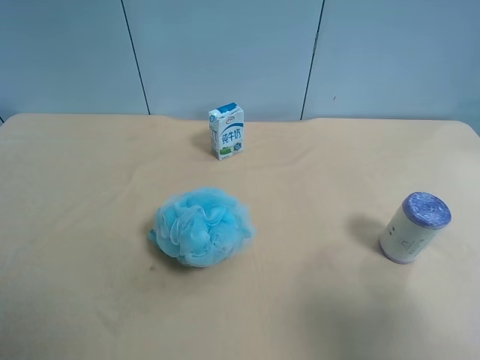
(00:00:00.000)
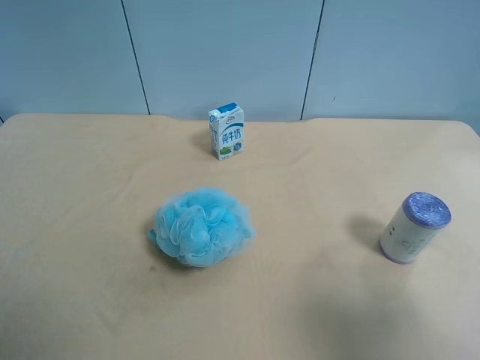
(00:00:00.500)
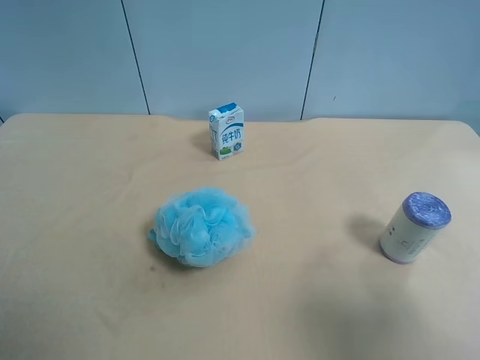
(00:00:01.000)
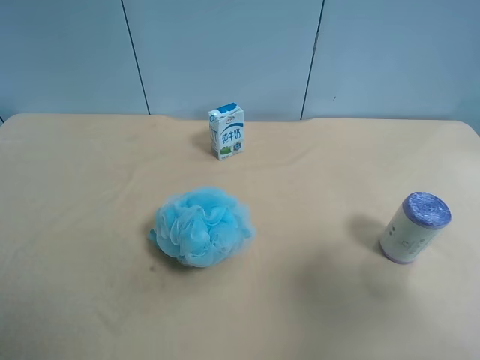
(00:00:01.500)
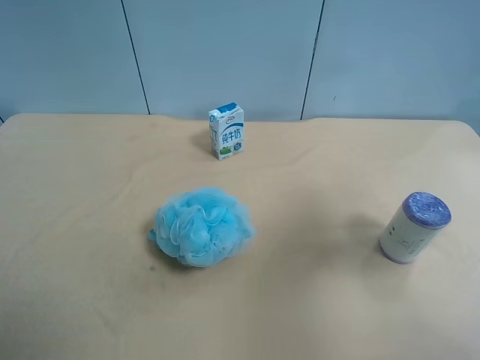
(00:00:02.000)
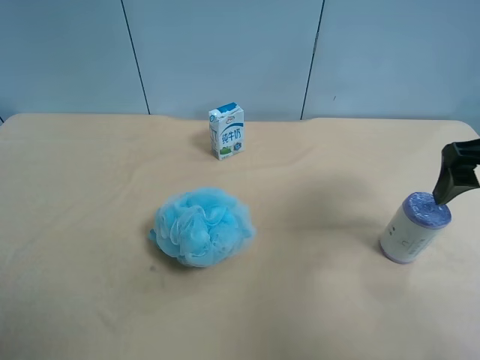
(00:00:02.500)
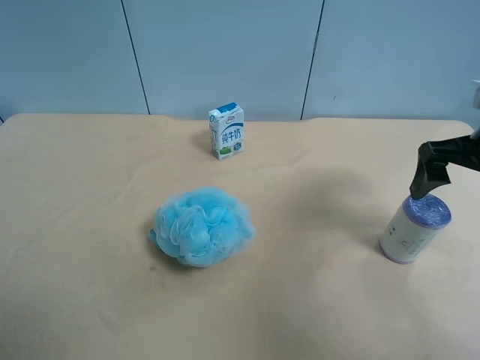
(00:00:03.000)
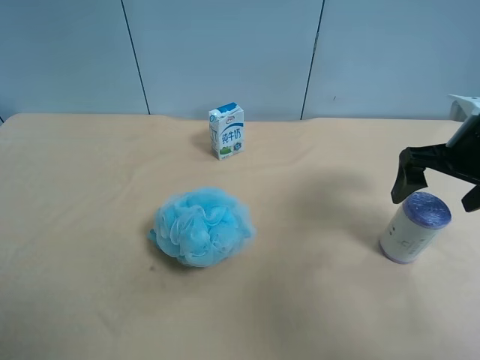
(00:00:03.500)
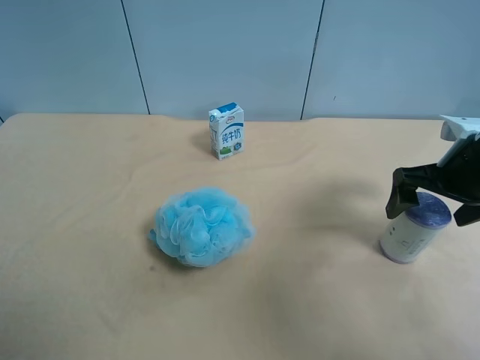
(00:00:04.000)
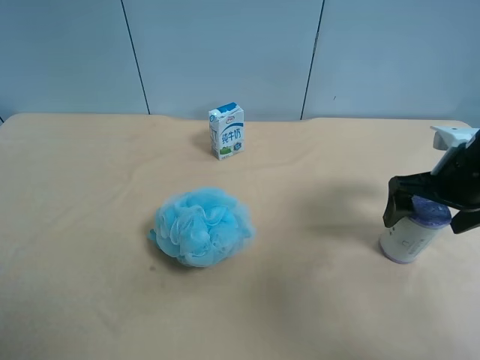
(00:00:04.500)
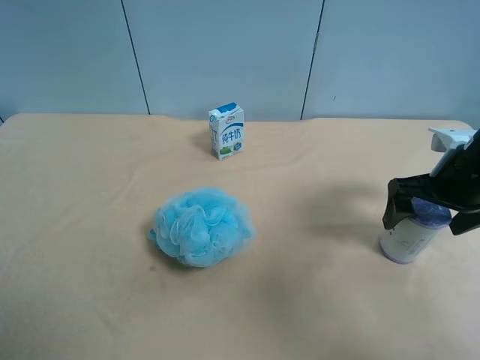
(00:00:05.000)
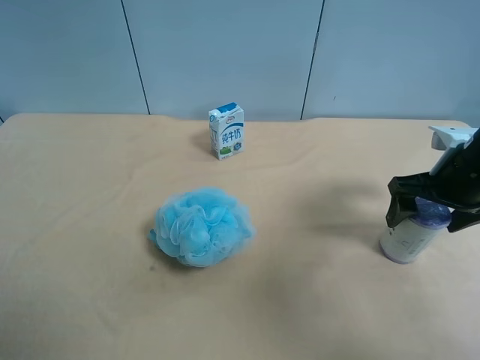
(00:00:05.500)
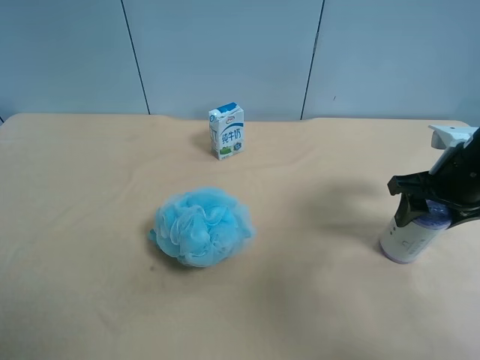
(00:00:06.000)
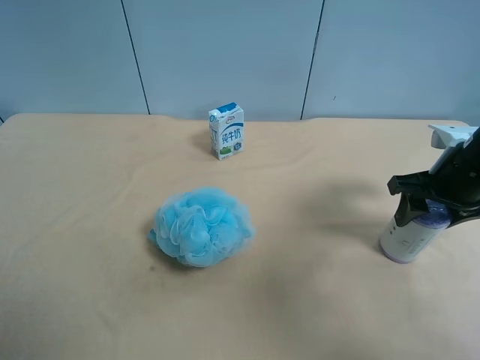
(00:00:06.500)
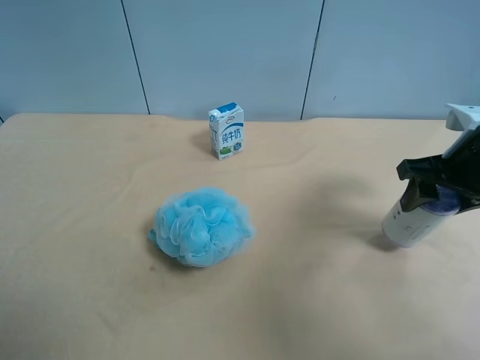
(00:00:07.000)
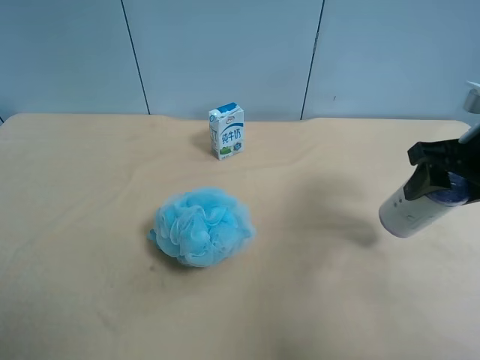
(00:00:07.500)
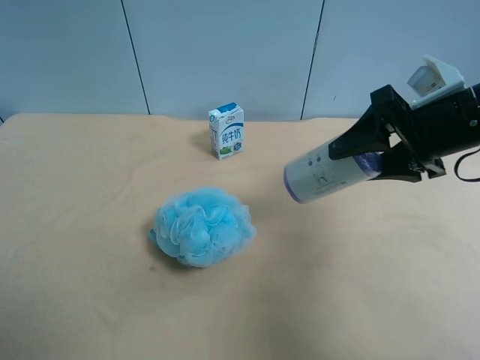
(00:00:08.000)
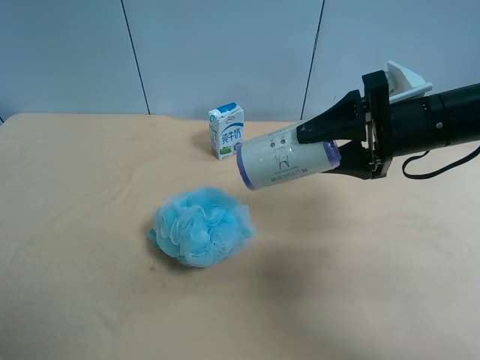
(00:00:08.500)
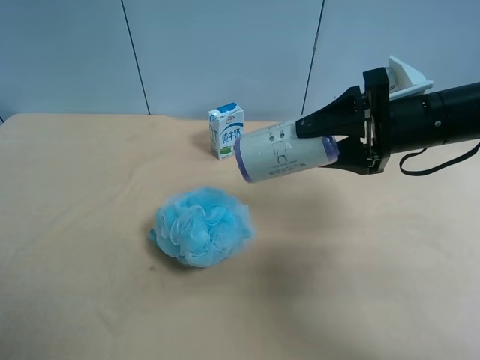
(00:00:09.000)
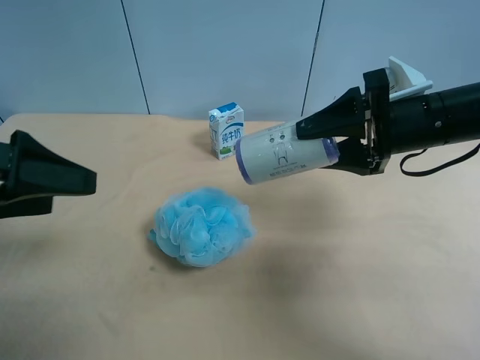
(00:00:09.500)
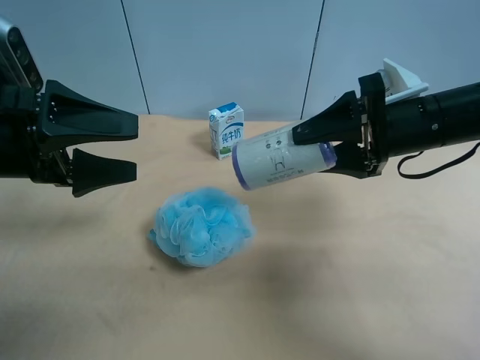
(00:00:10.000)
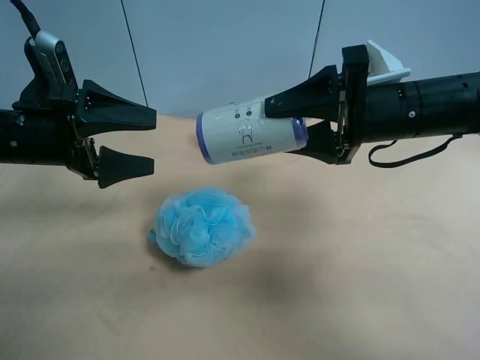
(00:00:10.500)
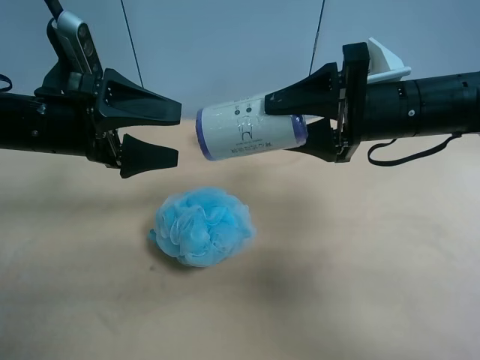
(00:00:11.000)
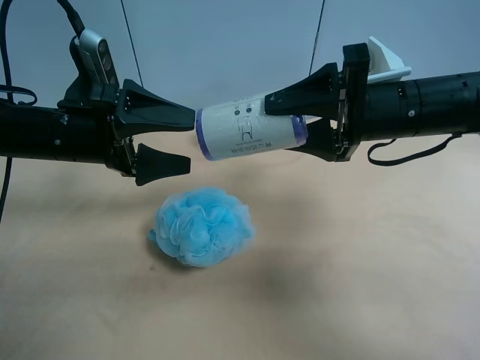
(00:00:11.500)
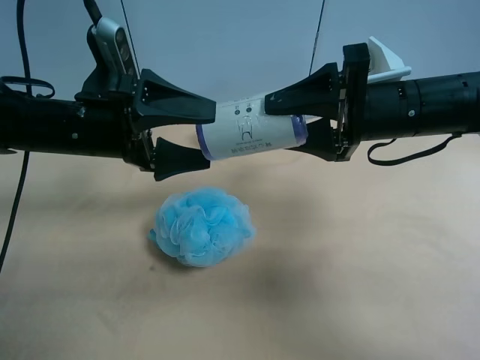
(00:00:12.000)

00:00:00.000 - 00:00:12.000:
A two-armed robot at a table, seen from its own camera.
Task of the whole recording: use the right gripper to pick up the item and transfer it from the right gripper to the left gripper.
00:00:00.000 - 00:00:02.000: The right gripper goes approximately 15 cm forward.
00:00:02.000 - 00:00:04.000: The right gripper travels downward and forward by about 15 cm.
00:00:04.000 - 00:00:06.000: The right gripper closes its fingers.
00:00:06.000 - 00:00:08.000: The right gripper travels upward and to the left by some 10 cm.
00:00:08.000 - 00:00:10.000: The left gripper goes about 20 cm forward.
00:00:10.000 - 00:00:12.000: The left gripper is displaced to the right and forward by approximately 10 cm.

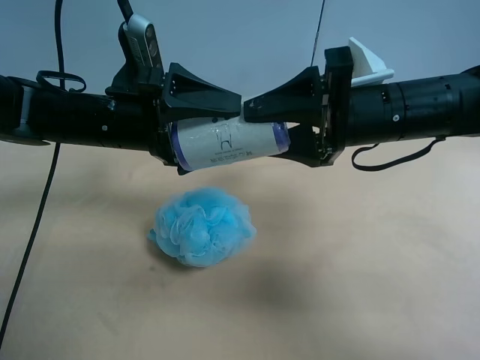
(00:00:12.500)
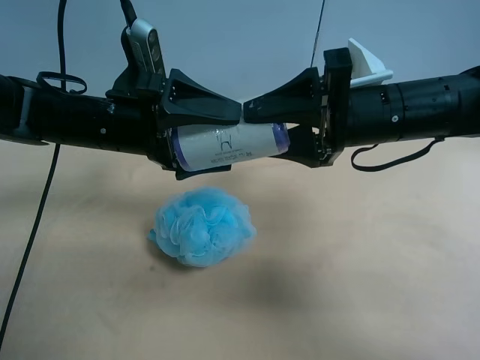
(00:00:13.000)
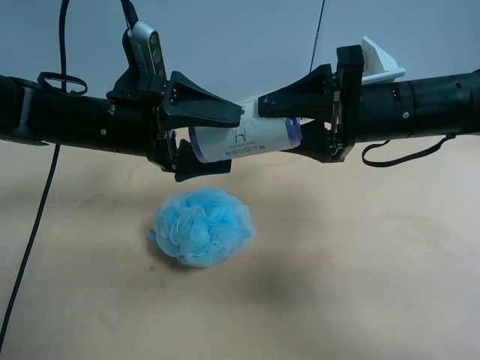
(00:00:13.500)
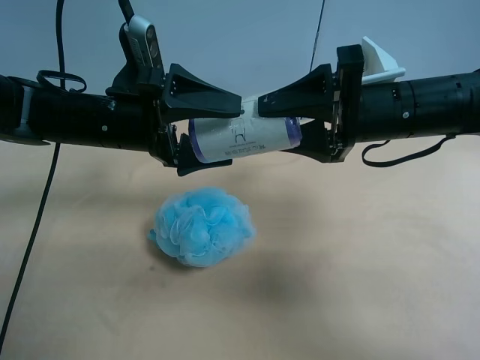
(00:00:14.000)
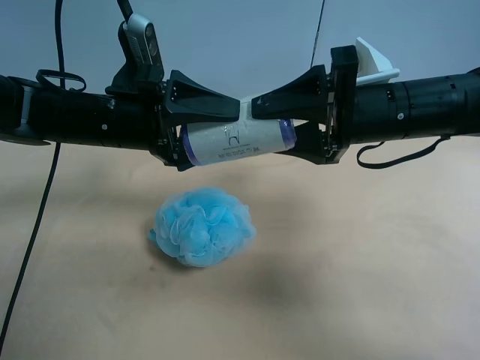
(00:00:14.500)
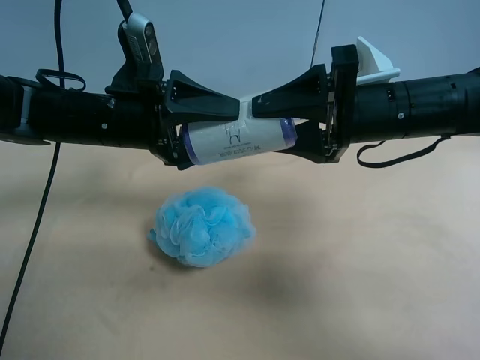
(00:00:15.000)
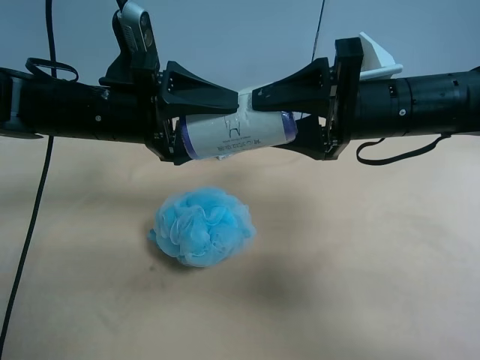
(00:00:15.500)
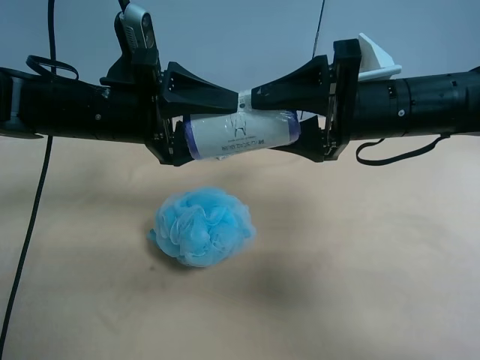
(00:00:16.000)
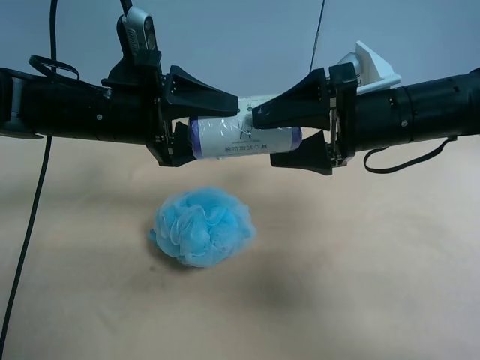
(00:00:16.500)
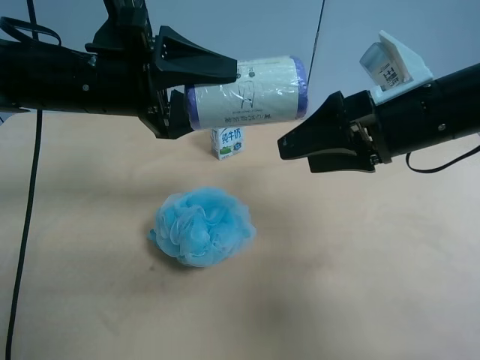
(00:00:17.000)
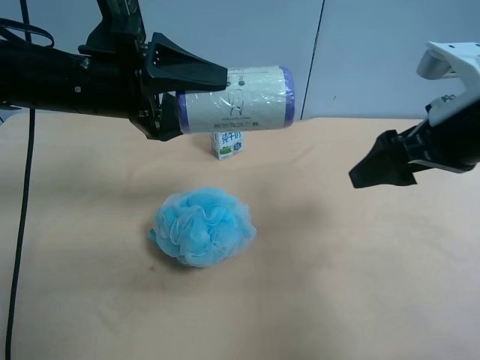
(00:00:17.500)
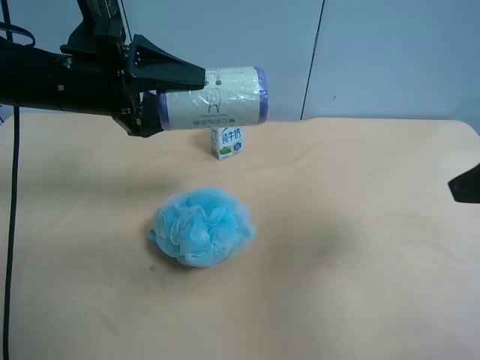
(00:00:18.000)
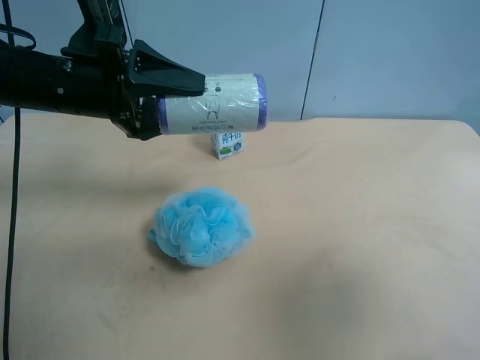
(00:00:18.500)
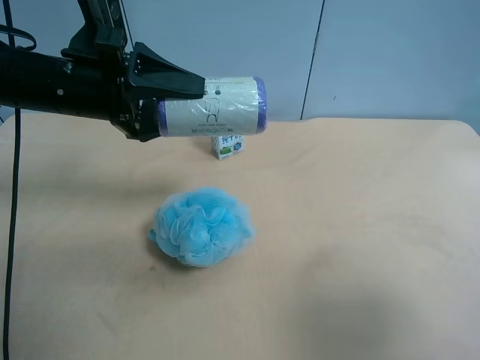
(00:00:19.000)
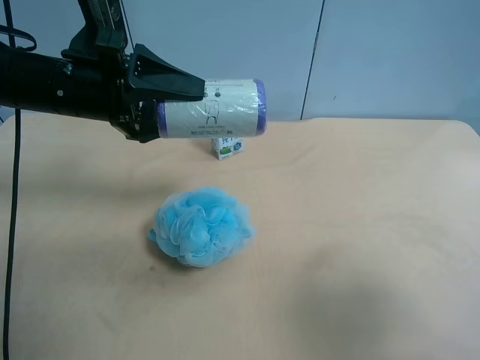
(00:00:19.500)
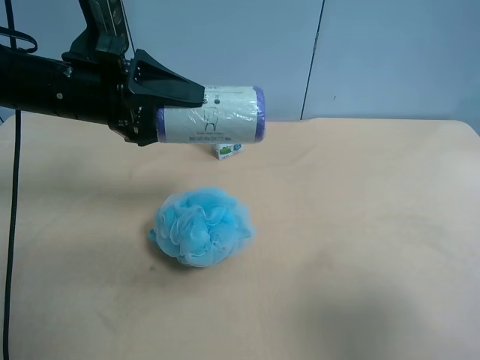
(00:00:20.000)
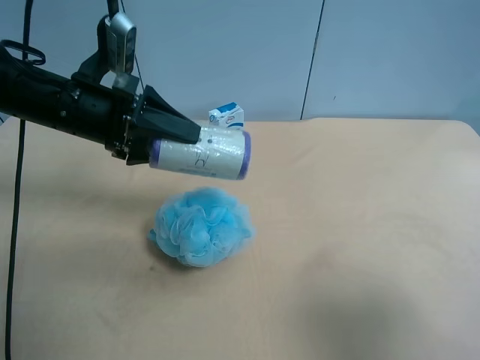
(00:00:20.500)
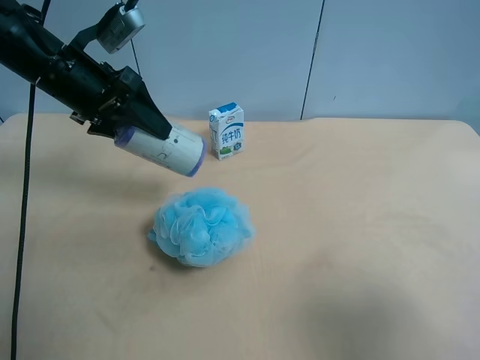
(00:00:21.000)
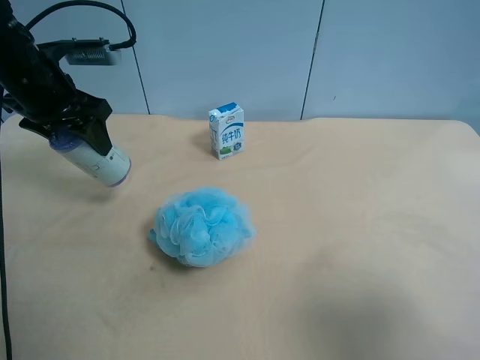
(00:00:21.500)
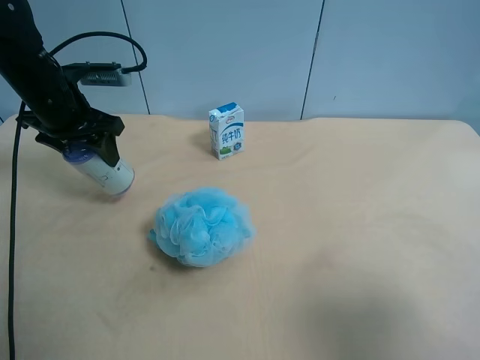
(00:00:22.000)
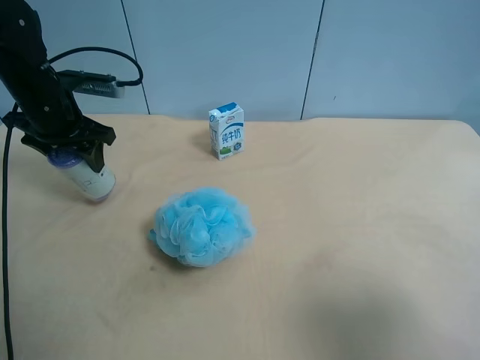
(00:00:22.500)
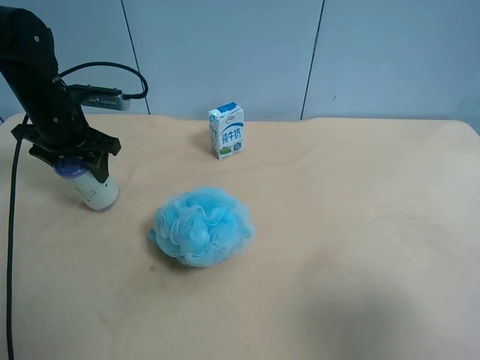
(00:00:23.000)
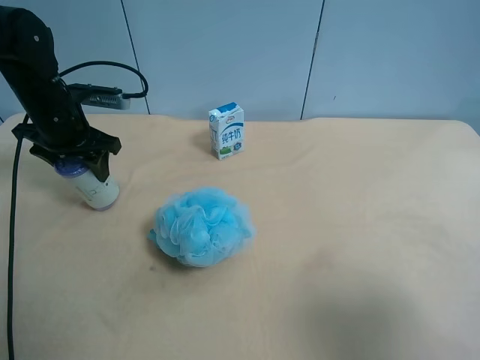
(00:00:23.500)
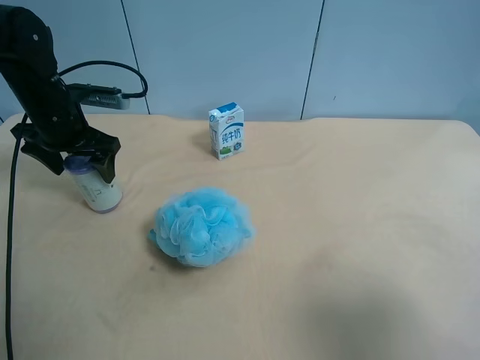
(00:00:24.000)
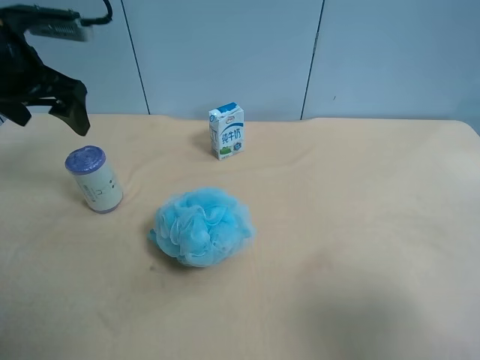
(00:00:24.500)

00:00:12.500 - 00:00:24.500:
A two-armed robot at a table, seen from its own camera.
Task of the whole recording: use the right gripper to pick up the item and transfer it from the right gripper to the left gripper.
00:00:12.500 - 00:00:14.500: The left gripper closes.
00:00:14.500 - 00:00:16.500: The right gripper opens.
00:00:16.500 - 00:00:18.500: The right gripper moves backward and to the right, approximately 25 cm.
00:00:18.500 - 00:00:20.500: The right gripper moves downward, some 5 cm.
00:00:20.500 - 00:00:22.500: The left gripper travels to the left and forward by about 10 cm.
00:00:22.500 - 00:00:24.500: The left gripper travels upward by roughly 10 cm, and opens its fingers.
